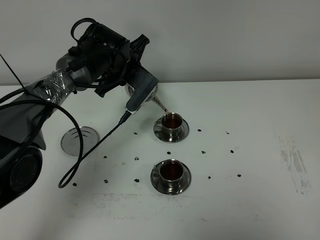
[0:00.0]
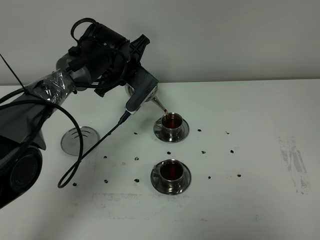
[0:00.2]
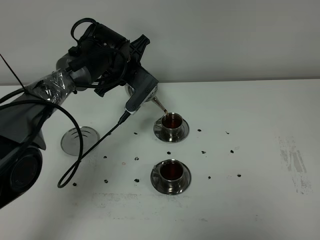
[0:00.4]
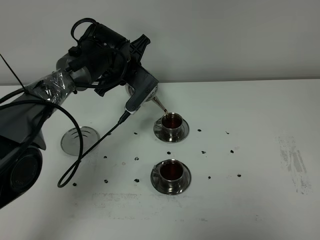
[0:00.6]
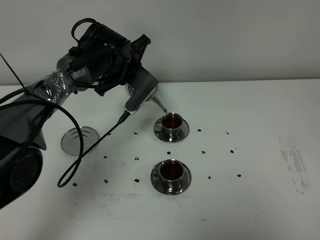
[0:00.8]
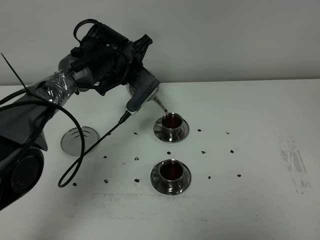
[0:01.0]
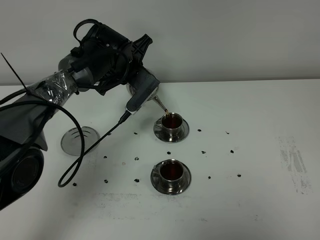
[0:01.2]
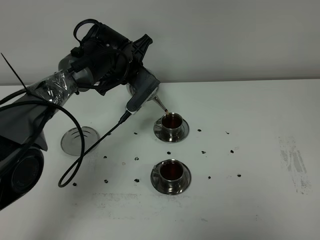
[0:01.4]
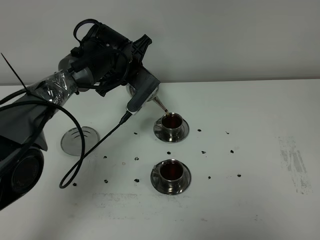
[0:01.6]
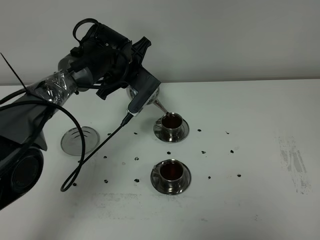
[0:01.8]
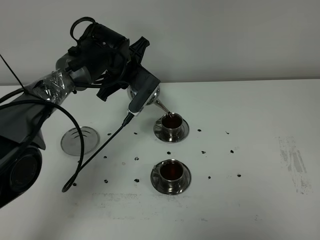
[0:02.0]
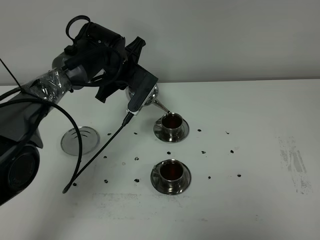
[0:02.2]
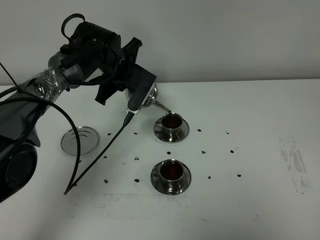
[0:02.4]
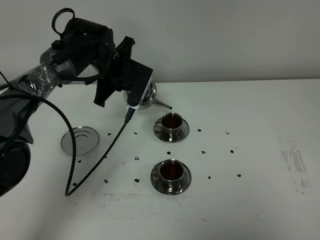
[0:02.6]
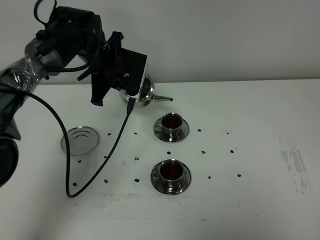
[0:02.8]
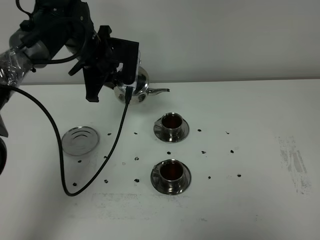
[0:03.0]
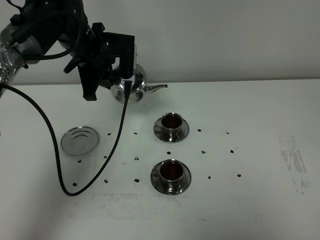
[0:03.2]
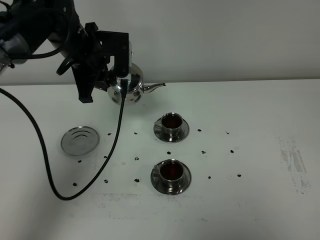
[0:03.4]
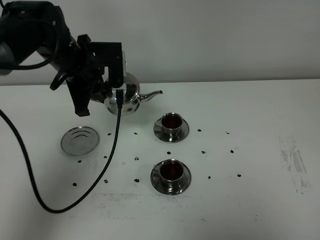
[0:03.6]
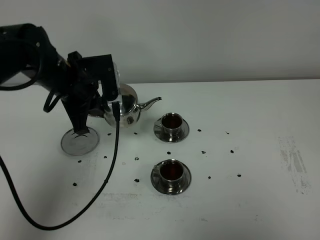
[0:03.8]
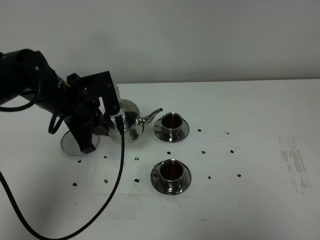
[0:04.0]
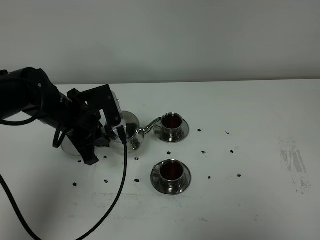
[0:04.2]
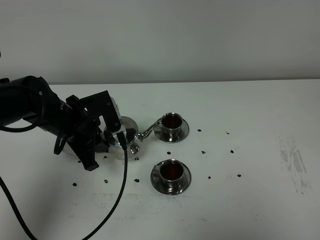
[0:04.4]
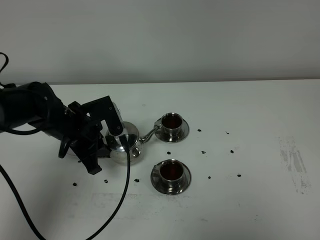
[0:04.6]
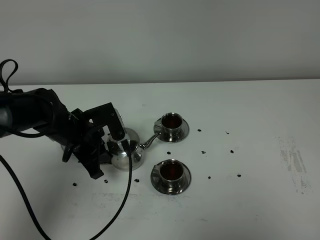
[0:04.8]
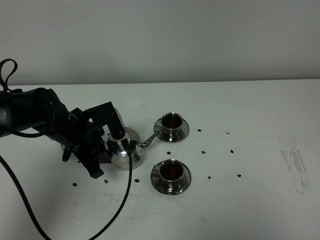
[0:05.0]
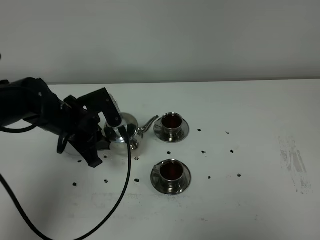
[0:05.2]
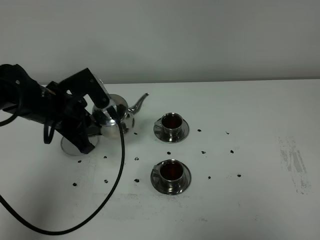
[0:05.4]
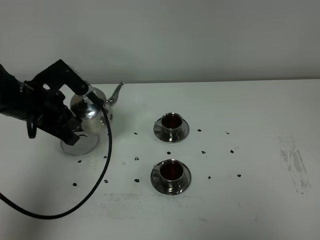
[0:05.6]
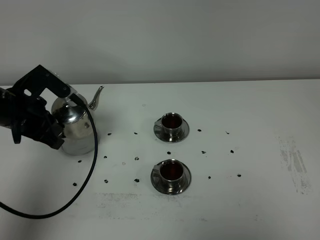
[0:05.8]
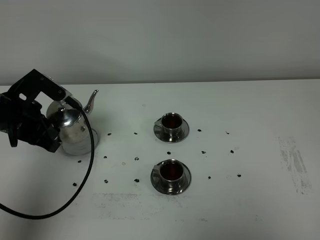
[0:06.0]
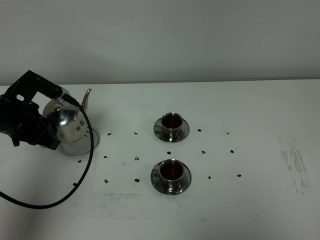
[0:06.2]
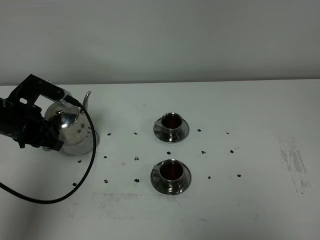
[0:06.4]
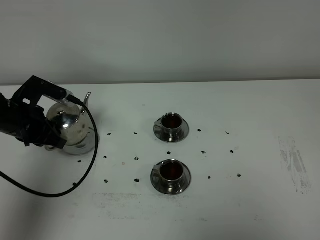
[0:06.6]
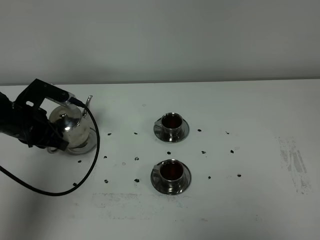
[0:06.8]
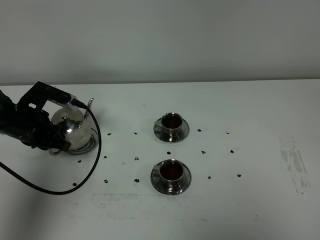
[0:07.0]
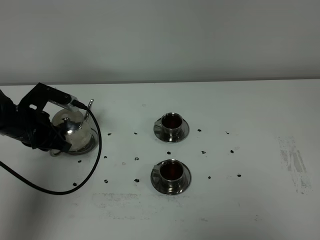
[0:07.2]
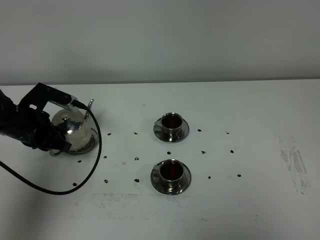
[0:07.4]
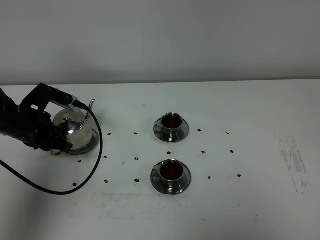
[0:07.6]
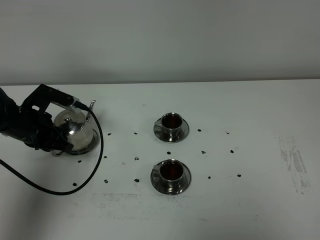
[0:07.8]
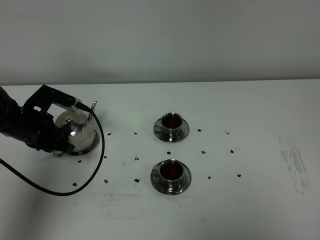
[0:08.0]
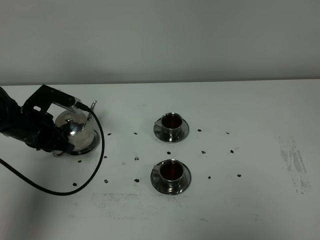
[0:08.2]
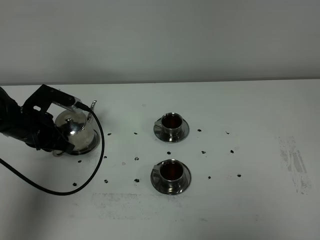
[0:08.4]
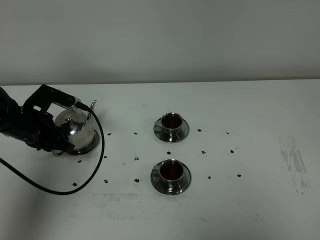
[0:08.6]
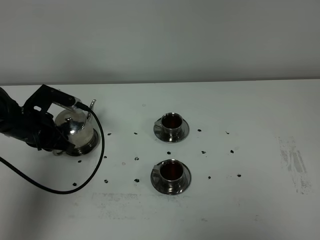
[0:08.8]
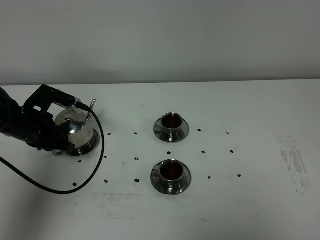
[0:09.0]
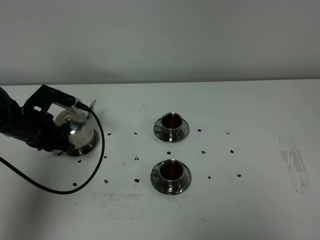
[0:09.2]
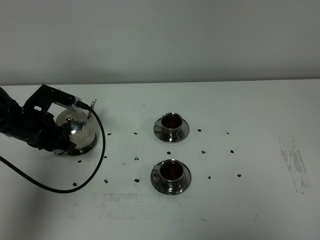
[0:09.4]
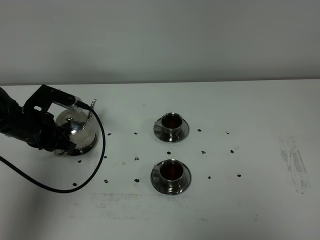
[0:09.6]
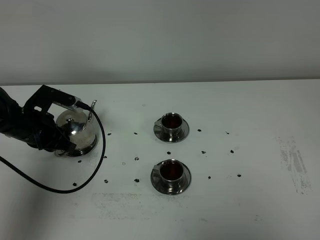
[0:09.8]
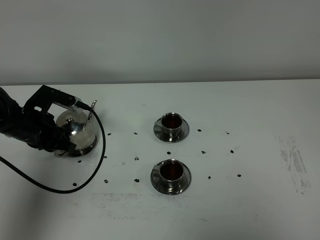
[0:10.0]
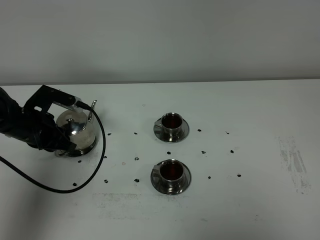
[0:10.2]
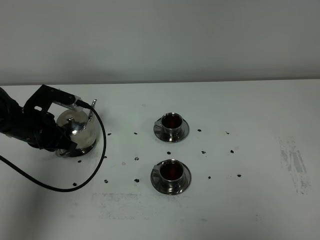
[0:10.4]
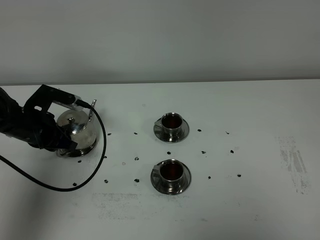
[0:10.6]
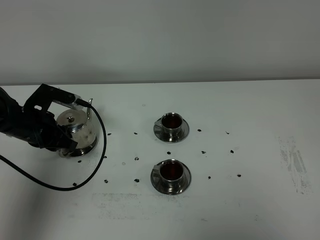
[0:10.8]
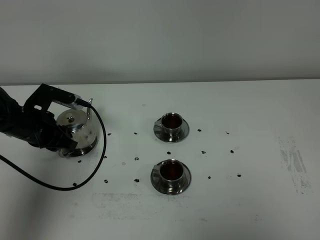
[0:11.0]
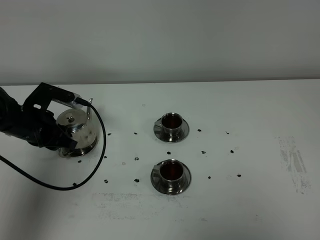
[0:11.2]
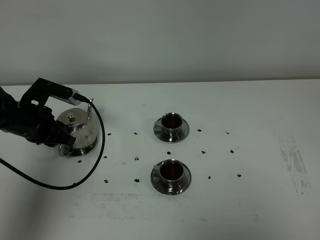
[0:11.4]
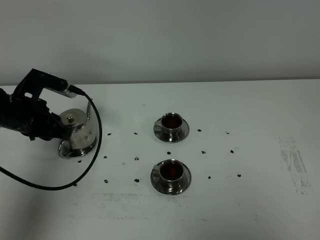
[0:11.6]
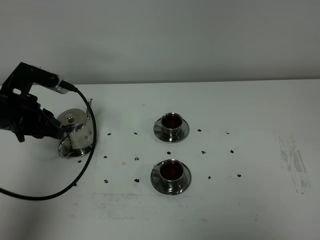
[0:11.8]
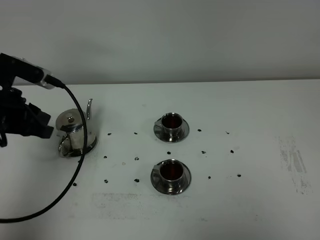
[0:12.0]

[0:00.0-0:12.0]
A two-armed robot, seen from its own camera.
Task of the whole recording: grasp the stainless steel teapot and pour the tea into the two stainless steel teacups one by one, put the stainless steel teapot back in its original place.
Step, 0:00.0 to 0:02.8: Pour tea into the teacup with the left gripper.
0:00.0 to 0:01.6: The two grippers keep their place.
0:01.6 to 0:03.0: The left gripper moves to the left, some 5 cm.
0:03.0 to 0:04.4: The left gripper shifts roughly 15 cm backward and downward.
0:04.4 to 0:06.0: The left gripper travels to the left by roughly 10 cm.
0:06.0 to 0:07.6: The left gripper shifts approximately 5 cm downward.
0:07.6 to 0:10.4: Both grippers stay put.
0:10.4 to 0:12.0: The left gripper heads upward and backward, covering roughly 15 cm.

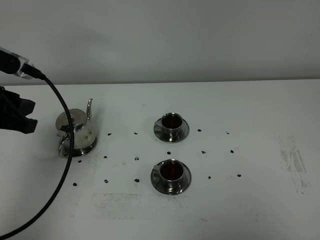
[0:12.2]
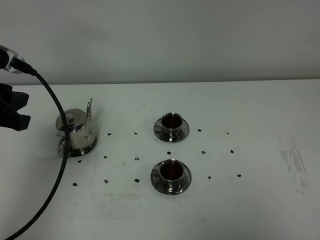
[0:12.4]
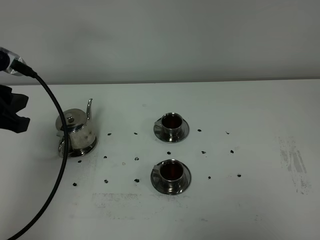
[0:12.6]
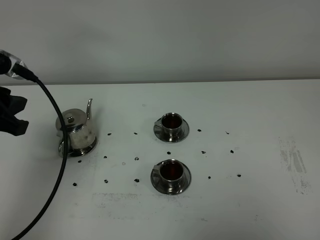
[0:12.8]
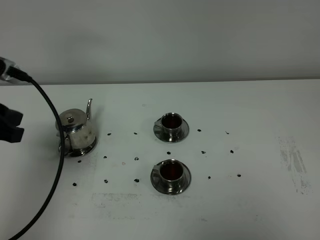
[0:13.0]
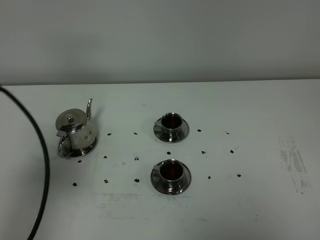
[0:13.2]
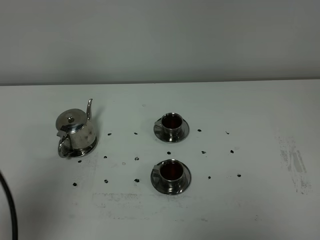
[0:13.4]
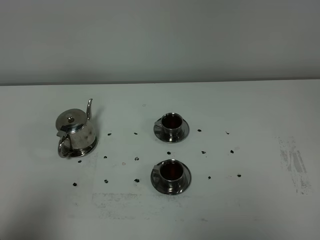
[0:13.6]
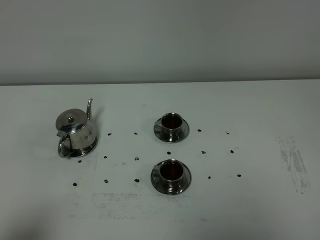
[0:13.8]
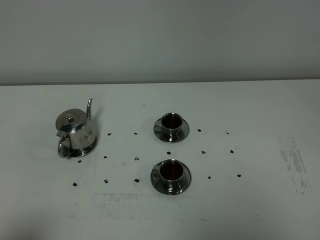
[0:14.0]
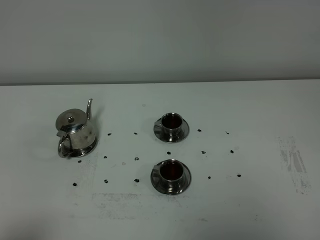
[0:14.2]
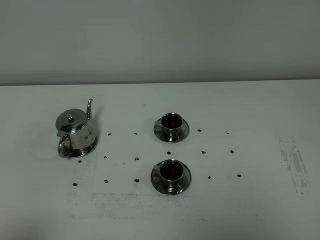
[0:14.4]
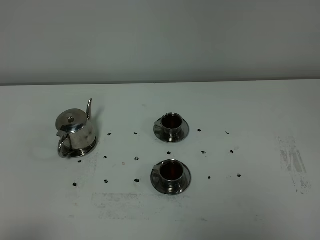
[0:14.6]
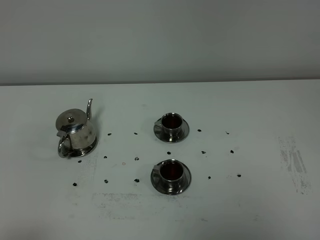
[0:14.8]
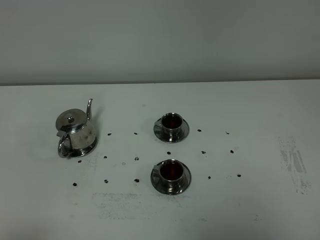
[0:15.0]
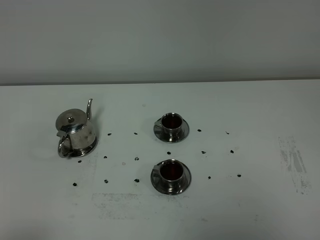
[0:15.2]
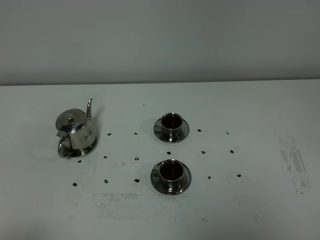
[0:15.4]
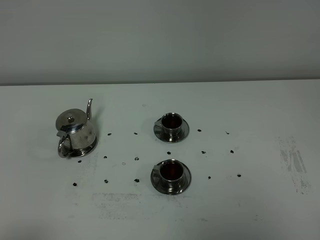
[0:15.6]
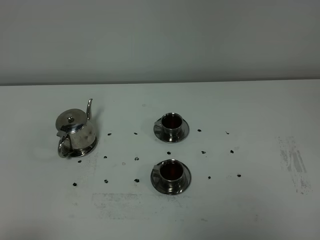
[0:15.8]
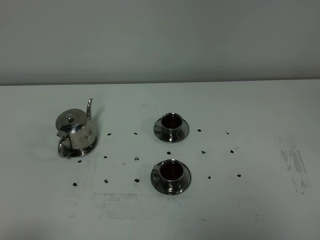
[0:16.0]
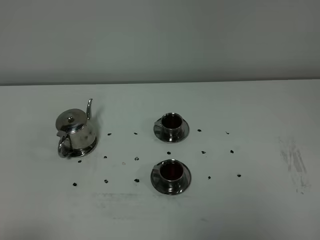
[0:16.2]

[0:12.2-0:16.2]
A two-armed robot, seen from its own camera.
Task of the whole recording: grasp the stainless steel teapot and pour the tea into the two stainless steel teacups one by one, put the stainless steel teapot back in its original place.
0:12.2 to 0:13.6: The left gripper heads backward, covering some 20 cm.
0:13.6 to 0:14.8: The left gripper travels backward by roughly 5 cm.

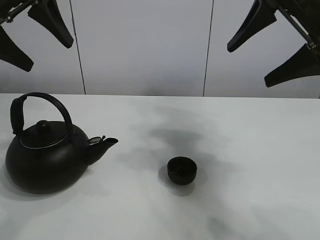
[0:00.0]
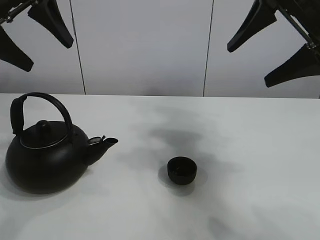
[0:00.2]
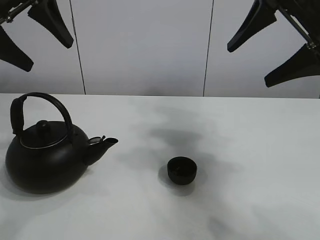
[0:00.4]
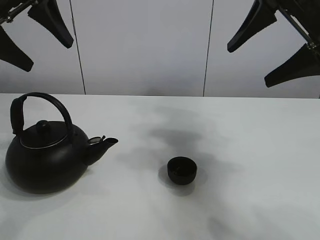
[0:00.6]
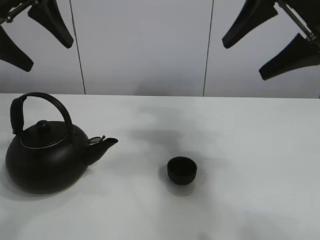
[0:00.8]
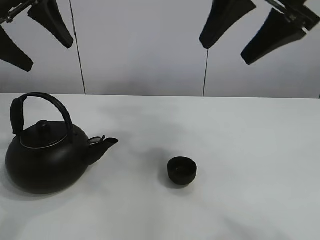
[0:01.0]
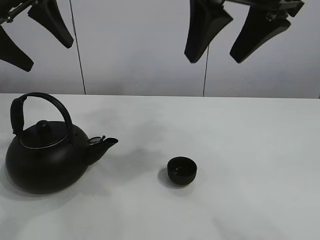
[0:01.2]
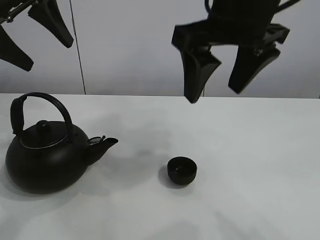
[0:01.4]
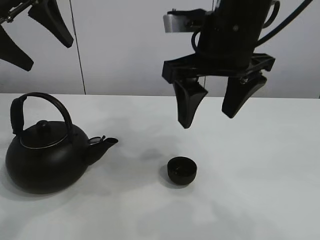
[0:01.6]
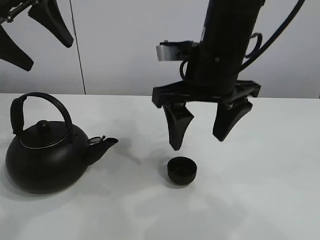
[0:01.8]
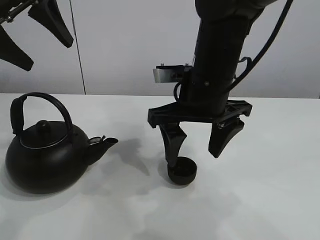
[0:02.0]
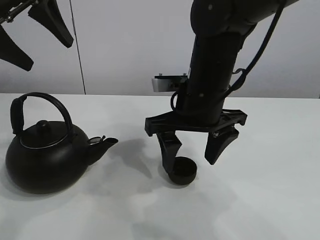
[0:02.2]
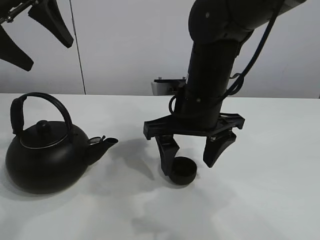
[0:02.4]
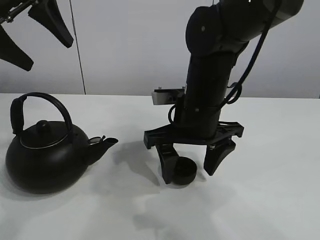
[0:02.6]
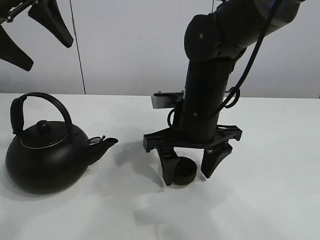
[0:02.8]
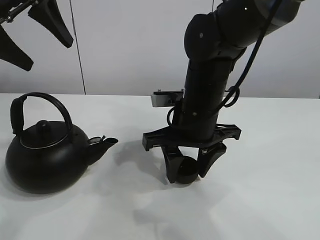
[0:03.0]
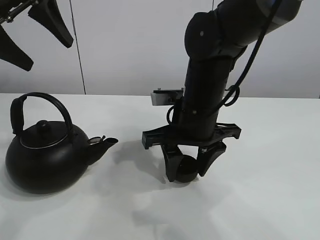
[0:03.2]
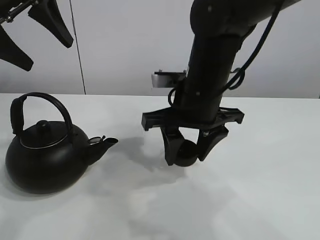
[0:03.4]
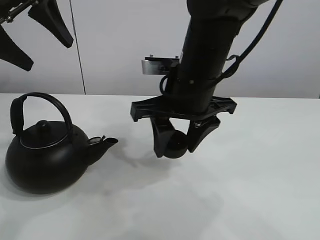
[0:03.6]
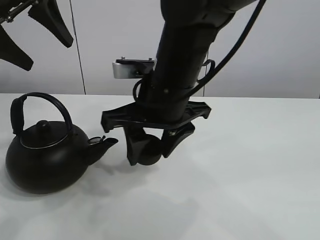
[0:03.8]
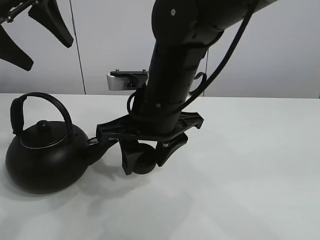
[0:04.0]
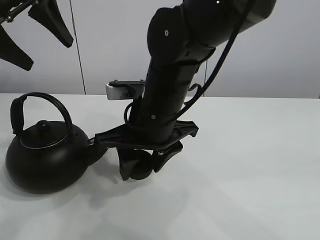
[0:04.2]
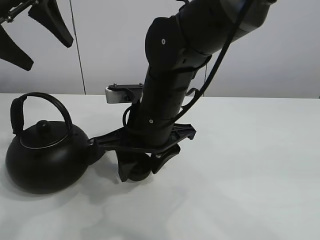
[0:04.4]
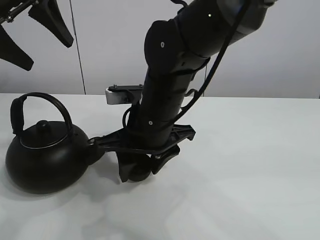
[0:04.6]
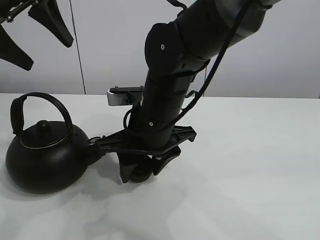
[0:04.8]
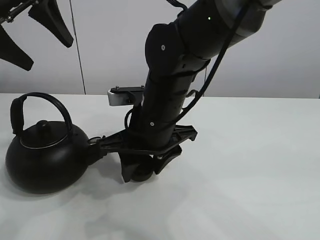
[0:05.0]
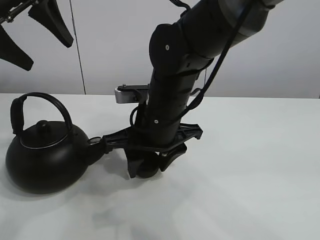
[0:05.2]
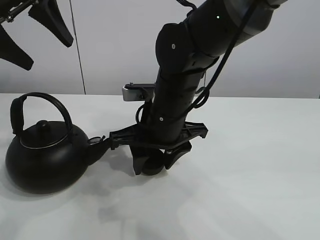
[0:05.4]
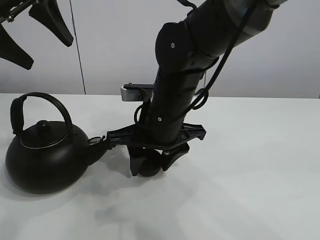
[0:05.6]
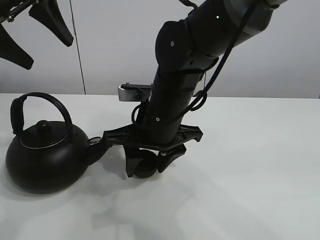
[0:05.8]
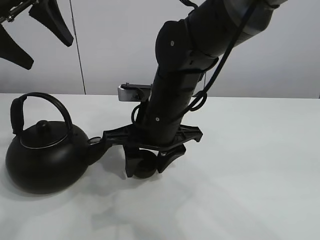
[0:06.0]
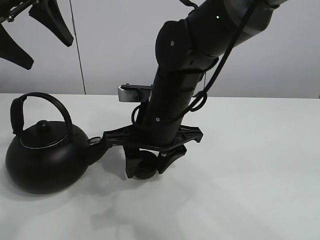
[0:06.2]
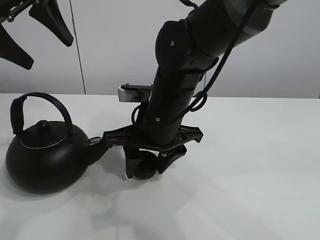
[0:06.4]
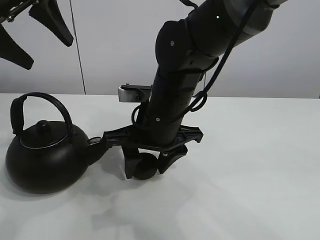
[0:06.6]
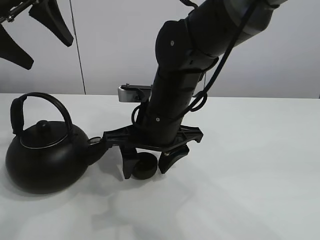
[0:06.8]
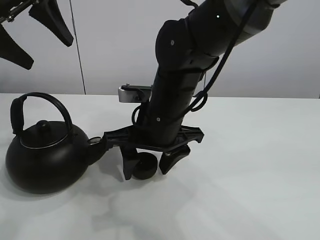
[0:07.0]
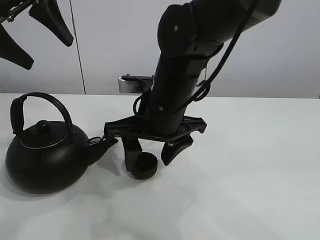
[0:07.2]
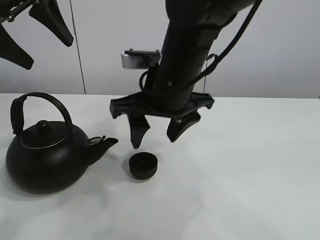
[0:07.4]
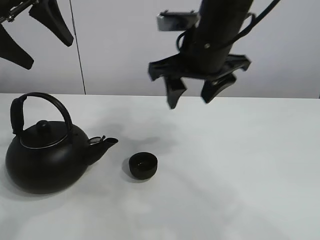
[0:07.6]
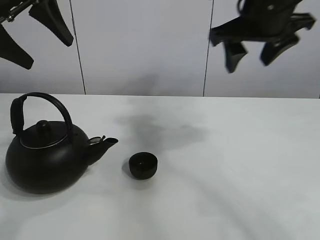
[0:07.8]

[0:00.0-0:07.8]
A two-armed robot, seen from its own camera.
Task of the whole recording: pour tea into the teacup.
Step, 0:00.0 to 0:03.2: Pick up the teacup with the right gripper.
Step, 0:03.4 to 0:06.8: Place the teacup in the center of view with the right gripper.
0:01.6 to 0:03.2: The right gripper goes about 10 cm downward, and closes.
0:03.2 to 0:04.6: The right gripper is displaced to the left by about 5 cm.
0:04.6 to 0:06.2: The grippers move only a little.
0:06.2 to 0:07.8: The right gripper heads to the right and upward, covering roughly 25 cm, and opens up.
